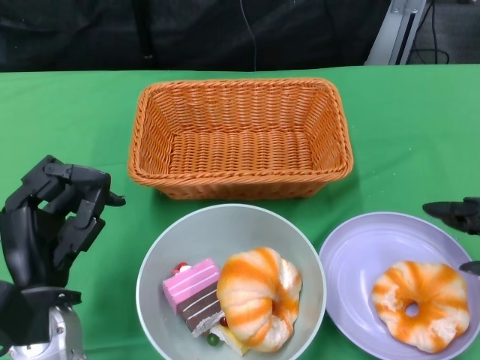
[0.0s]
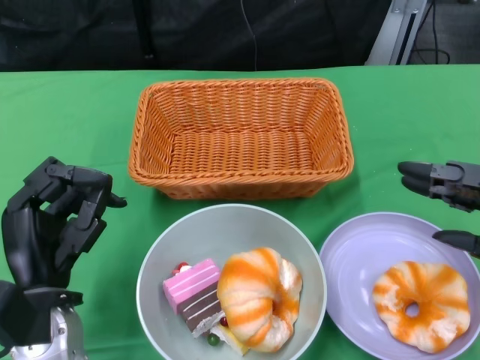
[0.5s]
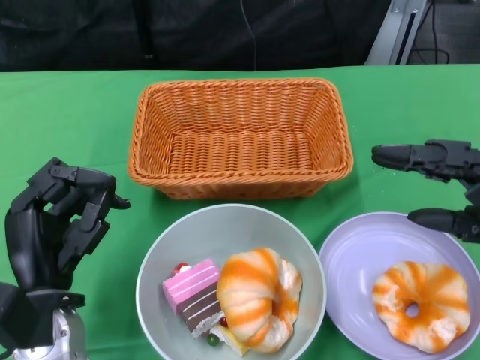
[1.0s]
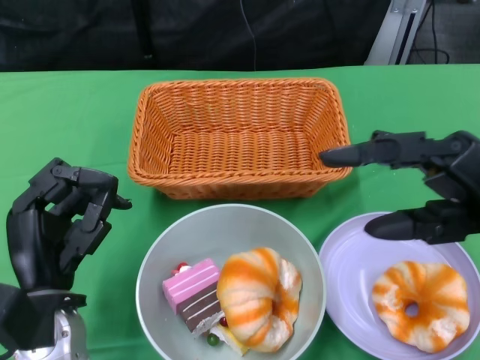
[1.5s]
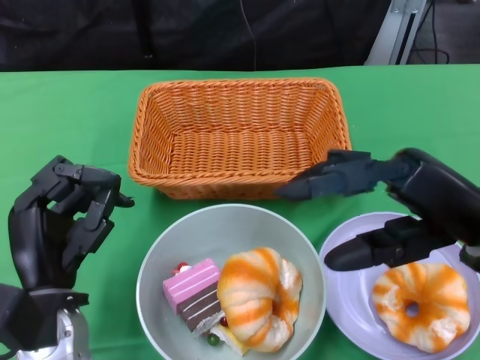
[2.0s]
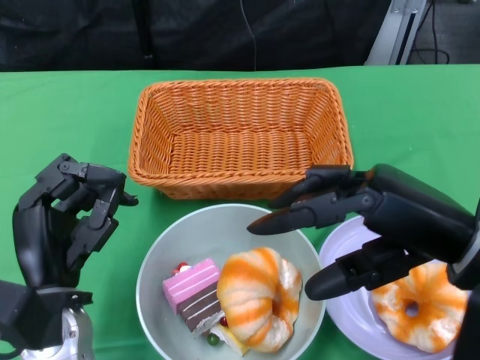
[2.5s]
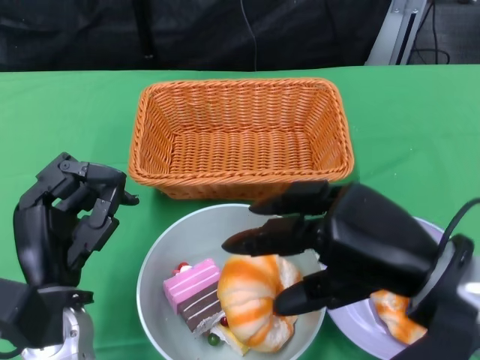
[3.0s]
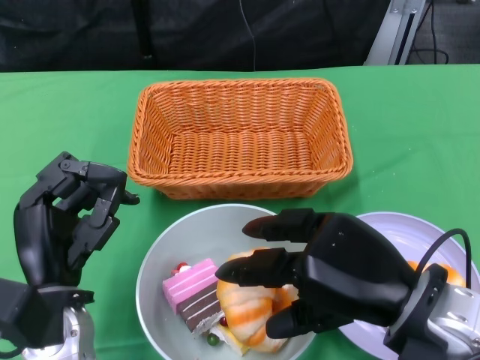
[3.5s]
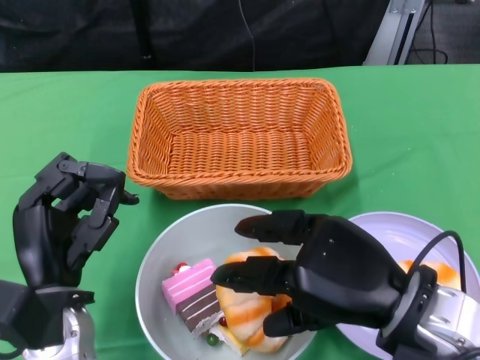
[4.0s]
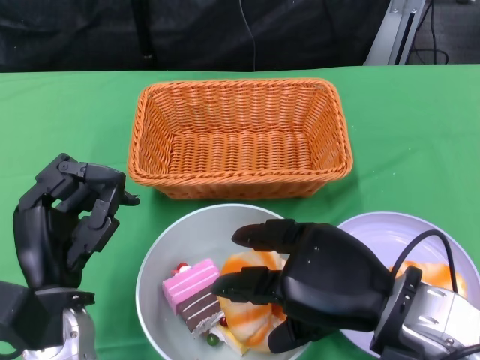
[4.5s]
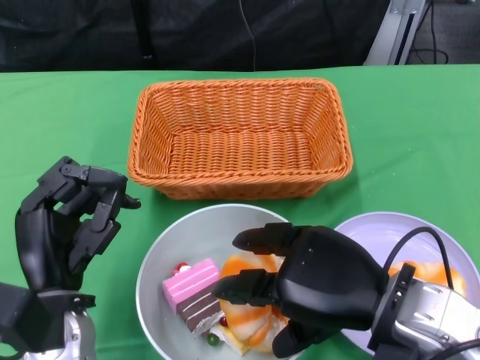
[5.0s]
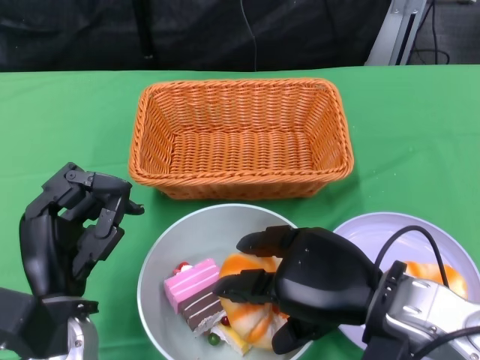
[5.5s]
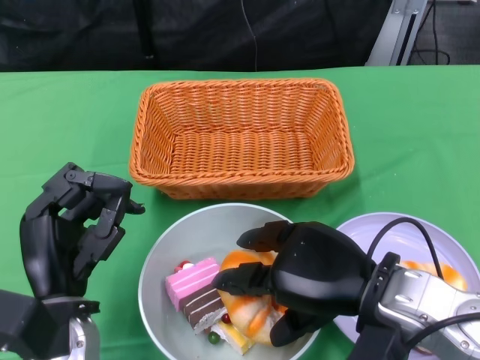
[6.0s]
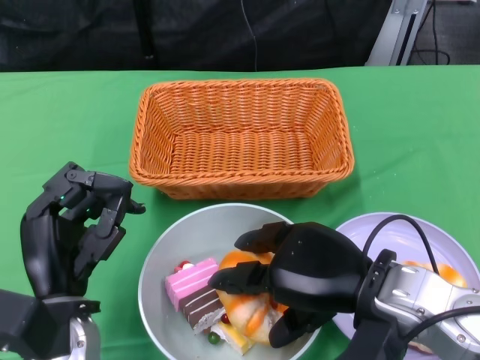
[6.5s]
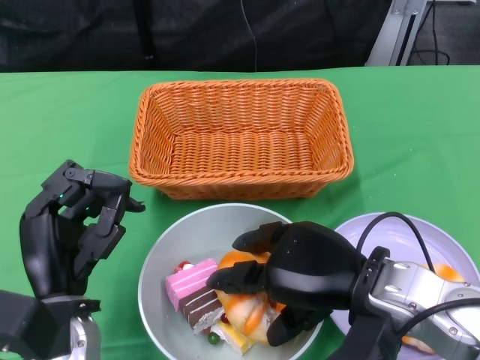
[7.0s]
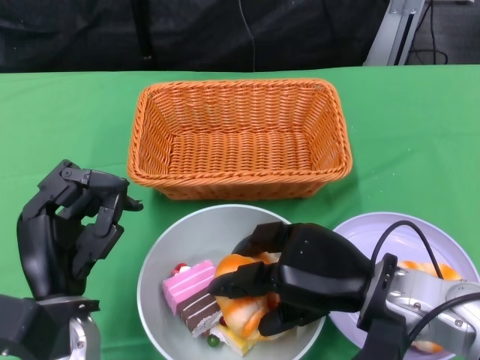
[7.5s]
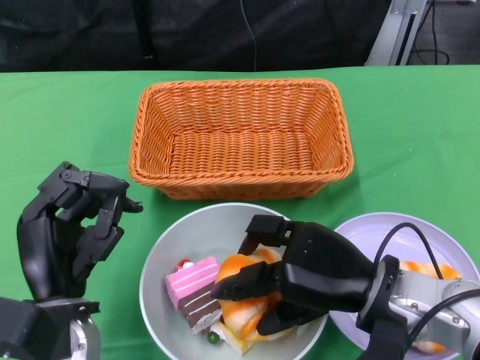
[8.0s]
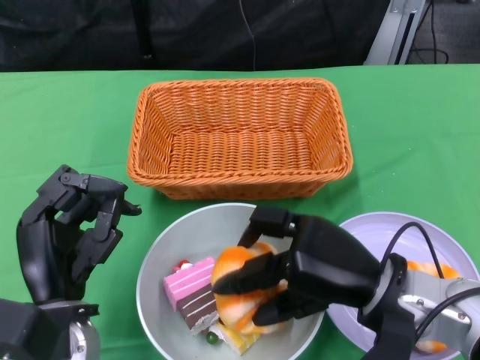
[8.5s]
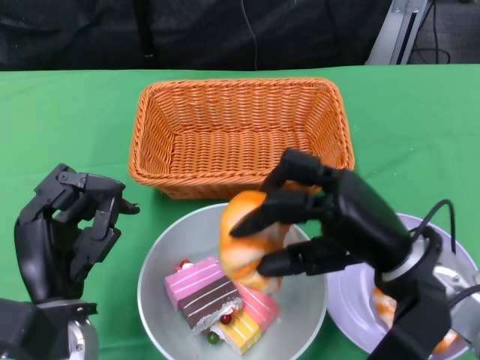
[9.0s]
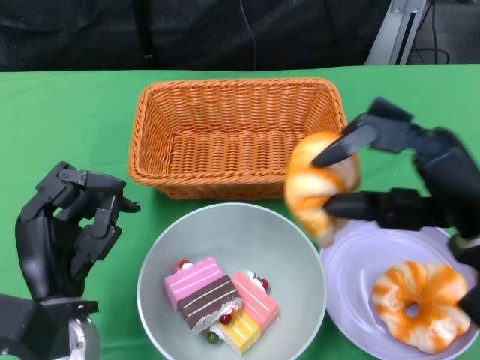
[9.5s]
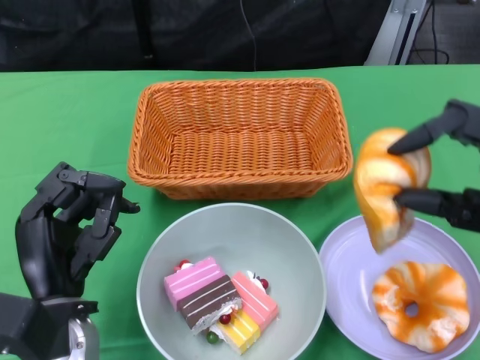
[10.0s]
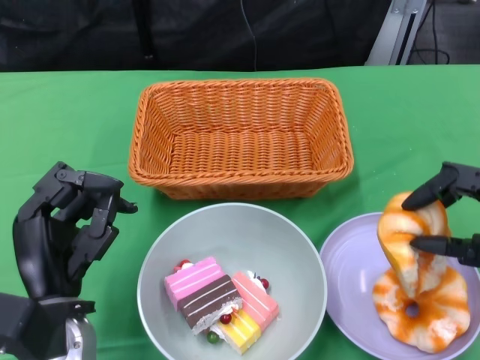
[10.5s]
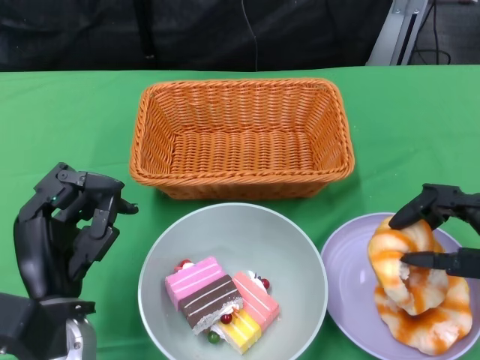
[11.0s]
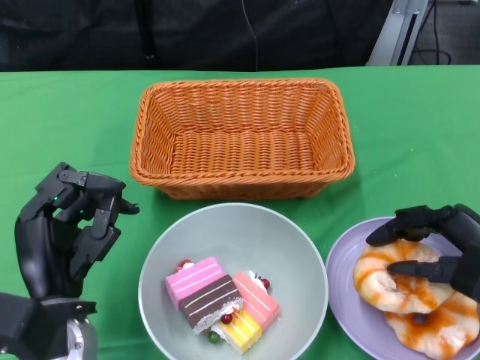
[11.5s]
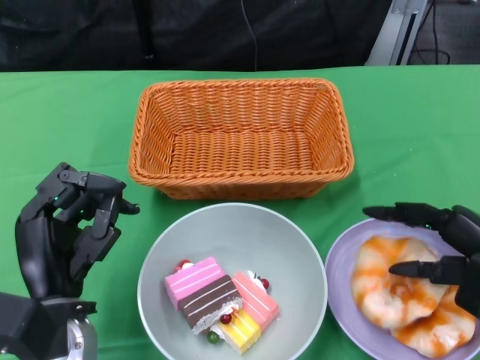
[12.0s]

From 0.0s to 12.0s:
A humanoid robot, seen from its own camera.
From 0.0s to 2.0s: The right hand heads to the left and upward, covering about 15 cm.
From 2.0s to 4.0s: The right hand moves to the left, approximately 5 cm.
From 8.0s to 10.0s: The right hand goes approximately 15 cm to the right and upward.
From 10.0s to 12.0s: The right hand moves downward, some 10 cm.

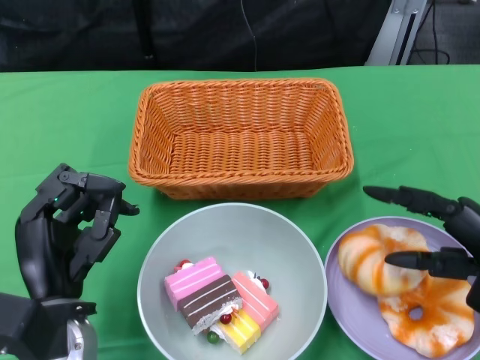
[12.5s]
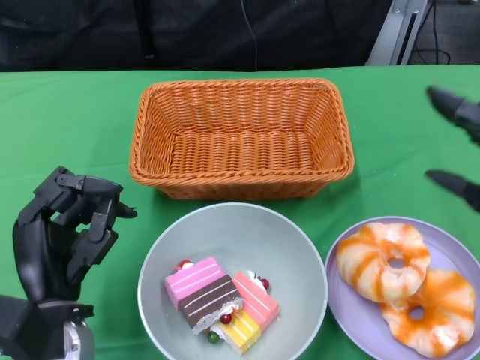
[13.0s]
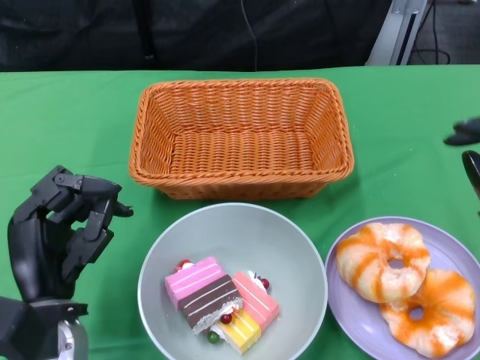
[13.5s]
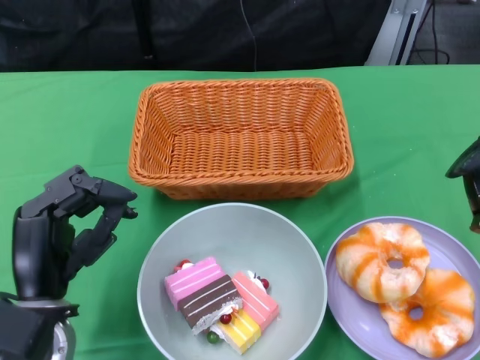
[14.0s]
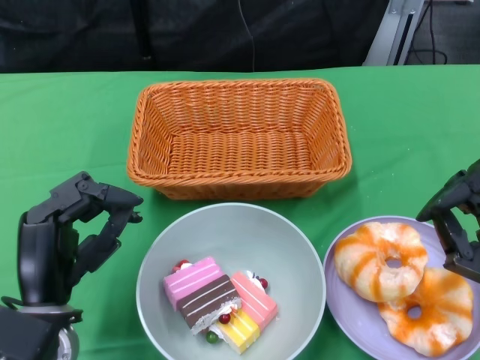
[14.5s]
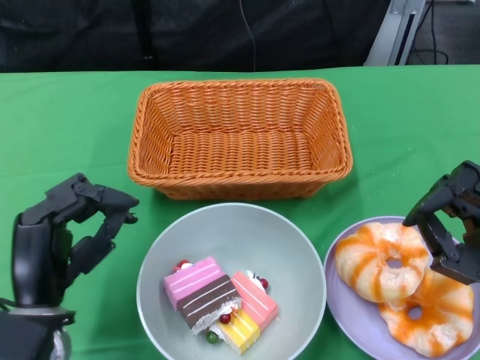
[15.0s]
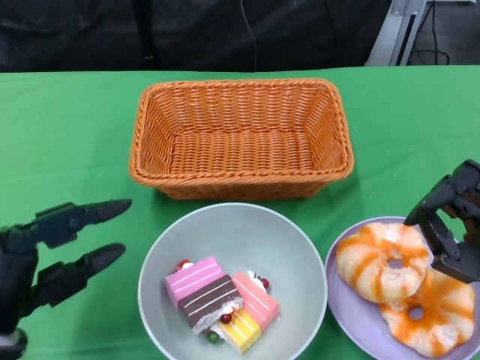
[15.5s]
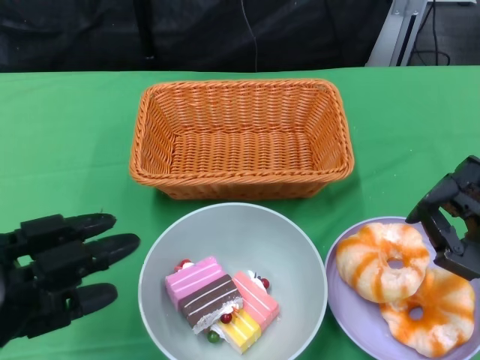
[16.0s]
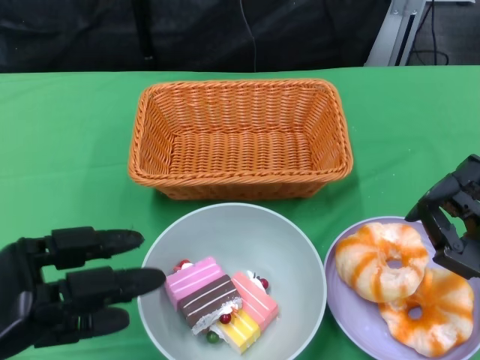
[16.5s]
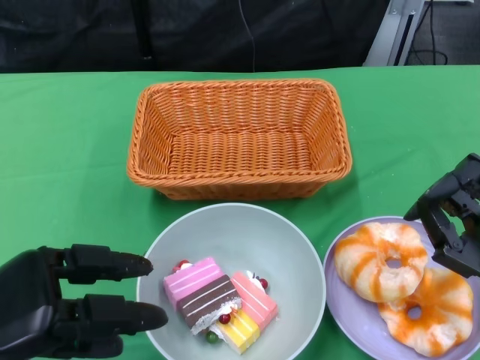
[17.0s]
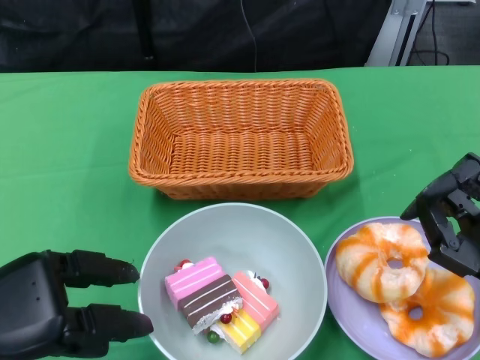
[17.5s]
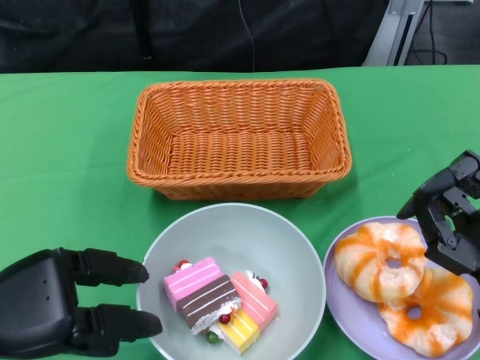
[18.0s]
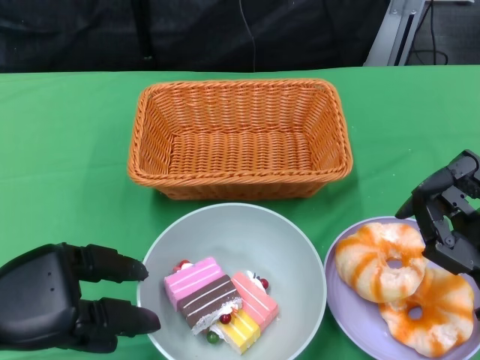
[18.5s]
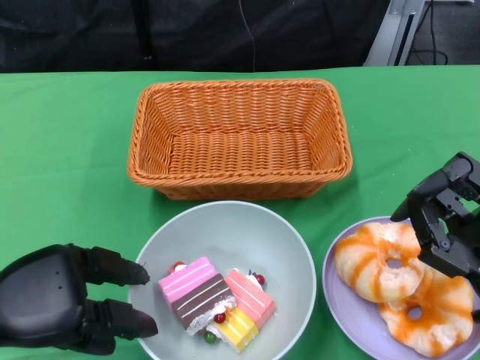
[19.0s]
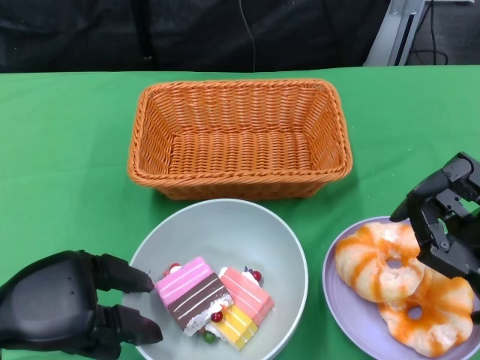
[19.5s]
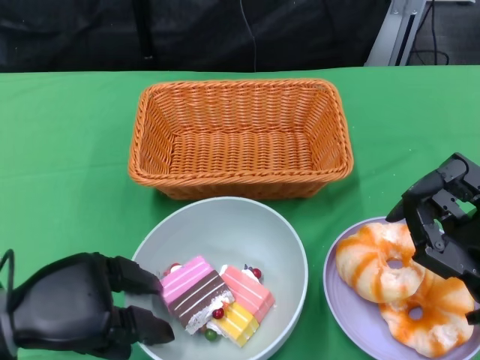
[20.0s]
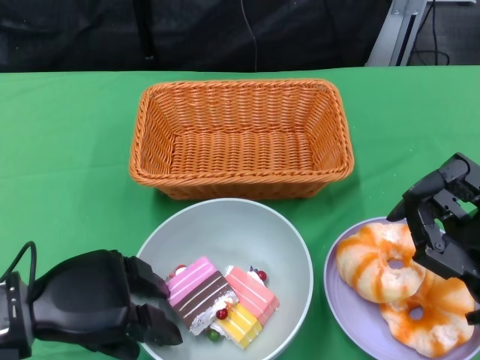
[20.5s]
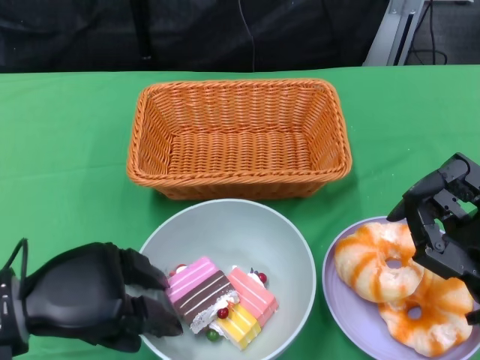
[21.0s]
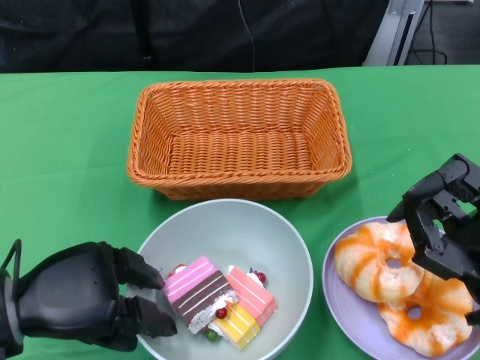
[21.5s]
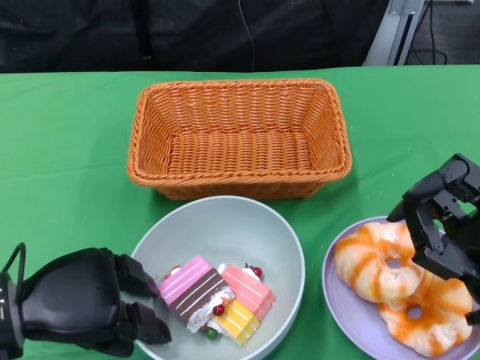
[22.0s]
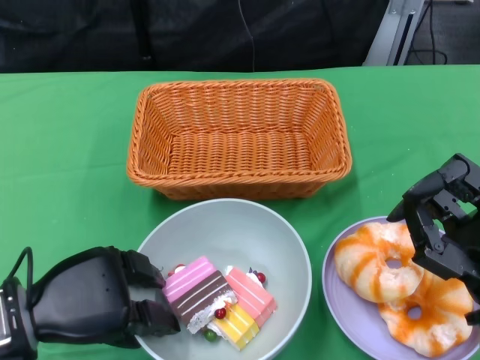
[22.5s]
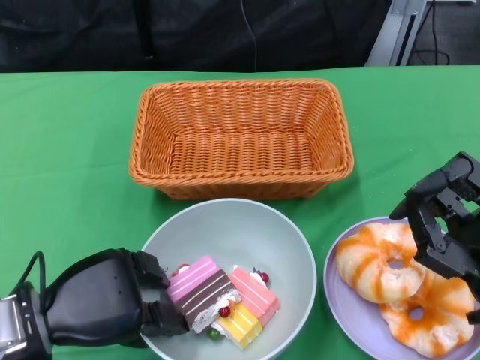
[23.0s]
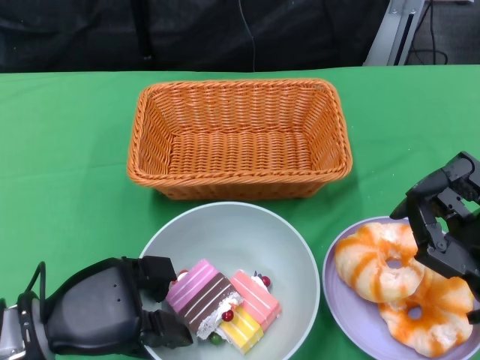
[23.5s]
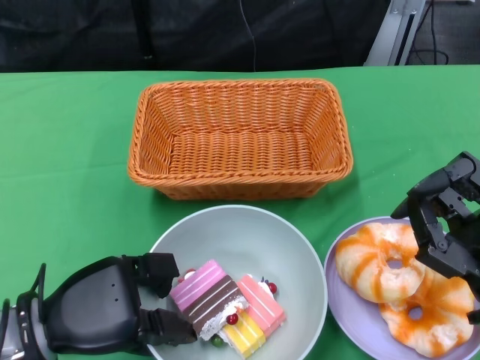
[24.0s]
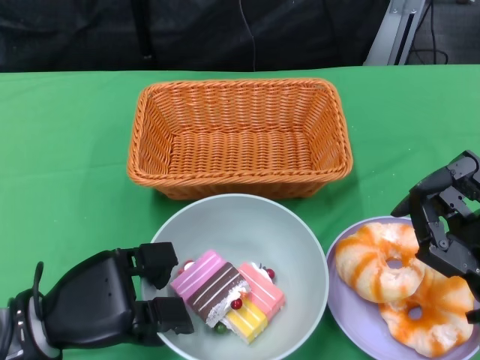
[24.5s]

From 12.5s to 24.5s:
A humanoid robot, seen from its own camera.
Step, from 12.5s to 15.5s: Pick up the bread with the right gripper and place it on the plate.
Step, from 16.0s to 24.0s: Grasp the bowl with the left gripper.
From 14.5s to 16.5s: The left hand goes about 5 cm to the left.
From 18.5s to 22.5s: The hands move only a little.
From 22.5s to 24.5s: The hands stay close to where they were, moving slightly.

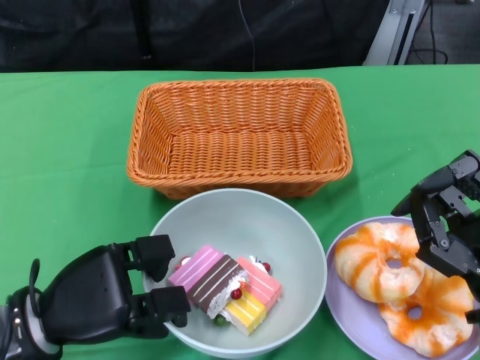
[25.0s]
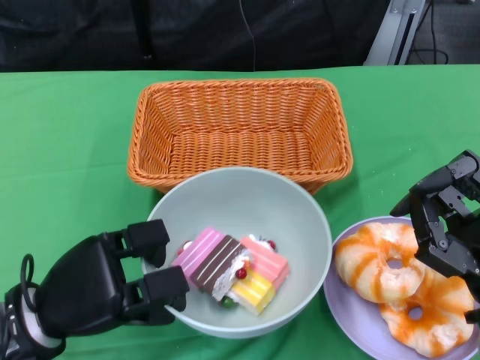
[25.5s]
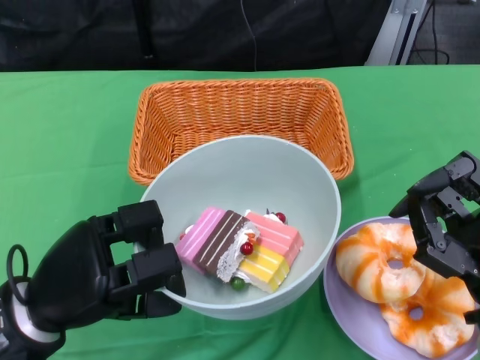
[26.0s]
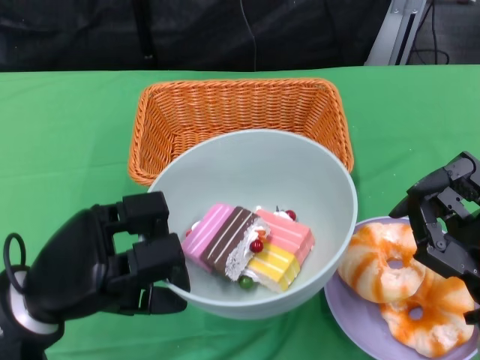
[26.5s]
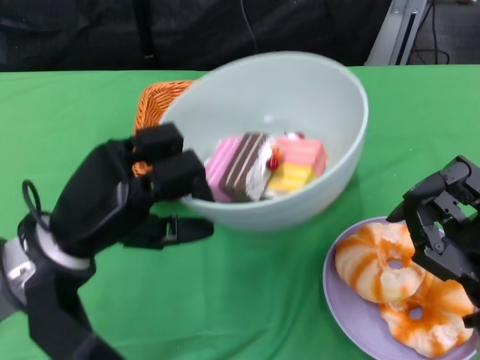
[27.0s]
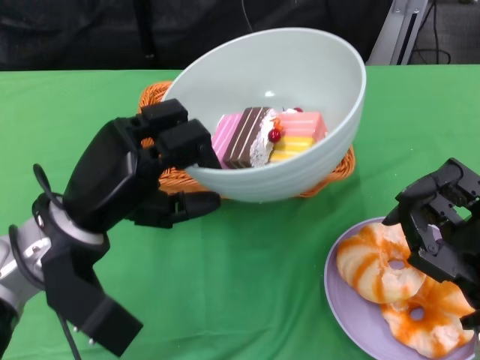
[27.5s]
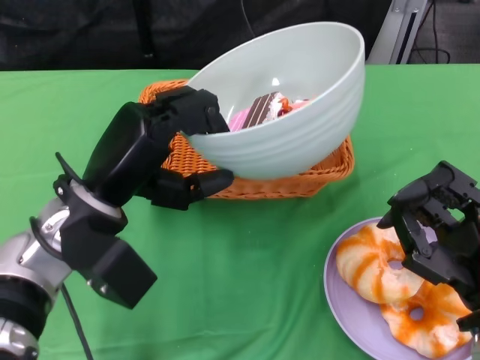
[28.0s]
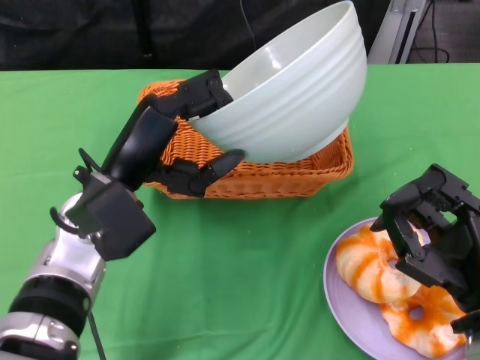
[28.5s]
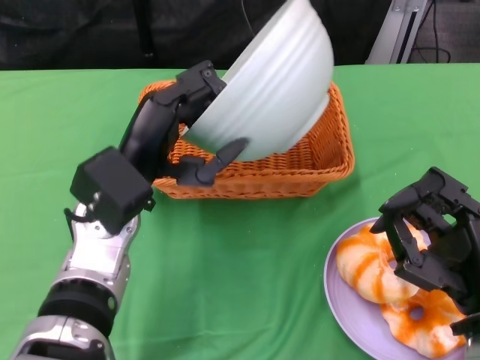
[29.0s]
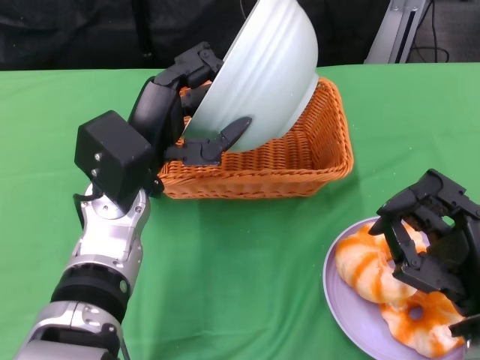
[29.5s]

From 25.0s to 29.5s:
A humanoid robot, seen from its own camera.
From 25.0s to 27.0s: The left hand travels upward by some 10 cm.
From 27.0s to 29.5s: The left hand heads to the right and forward, covering some 10 cm.
